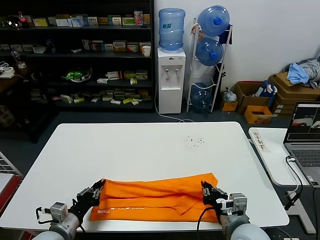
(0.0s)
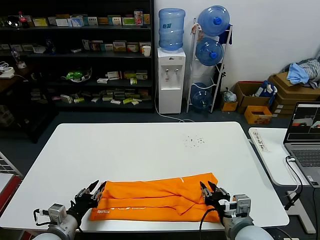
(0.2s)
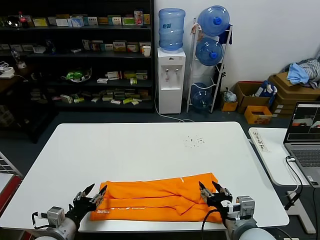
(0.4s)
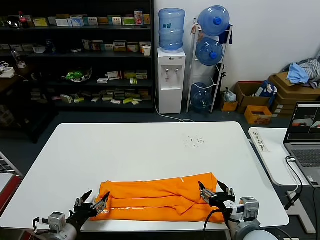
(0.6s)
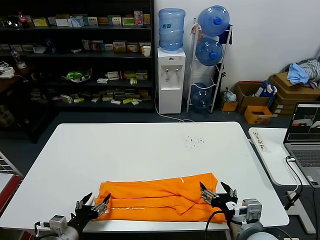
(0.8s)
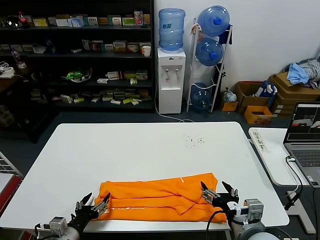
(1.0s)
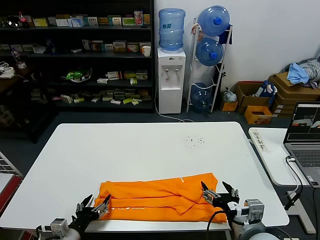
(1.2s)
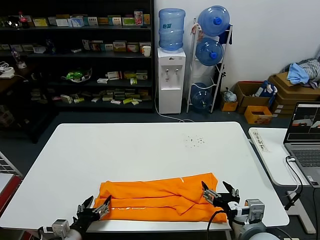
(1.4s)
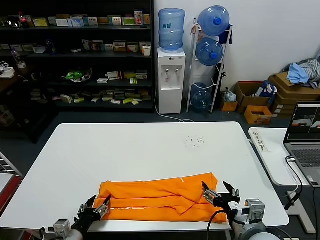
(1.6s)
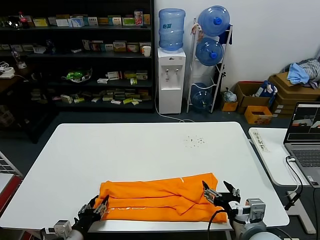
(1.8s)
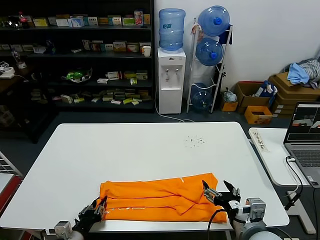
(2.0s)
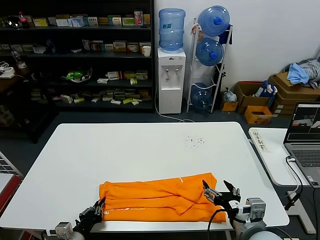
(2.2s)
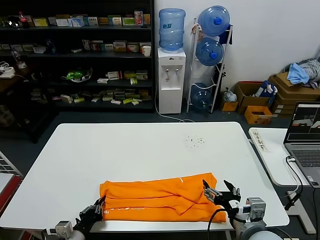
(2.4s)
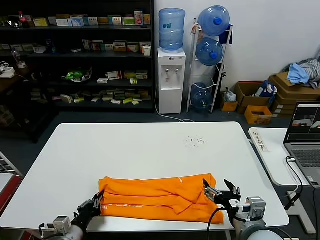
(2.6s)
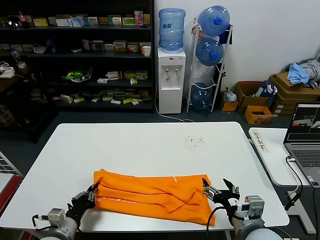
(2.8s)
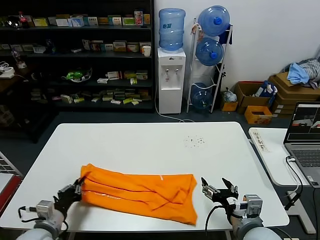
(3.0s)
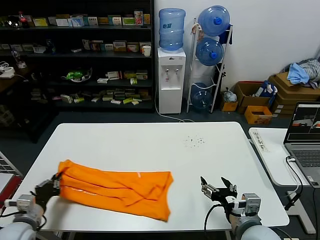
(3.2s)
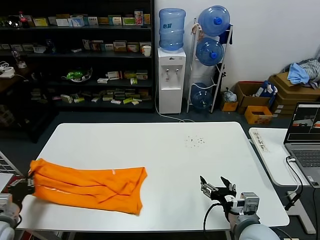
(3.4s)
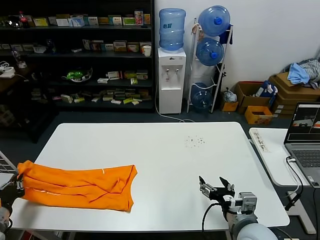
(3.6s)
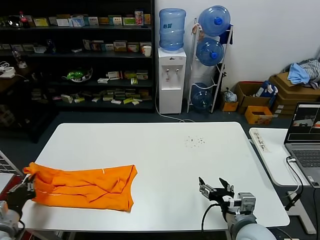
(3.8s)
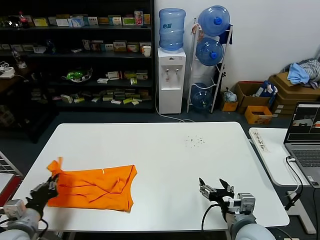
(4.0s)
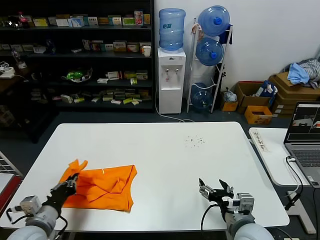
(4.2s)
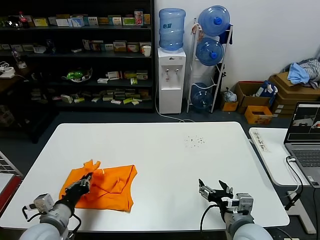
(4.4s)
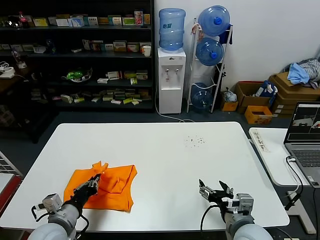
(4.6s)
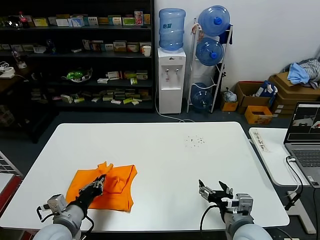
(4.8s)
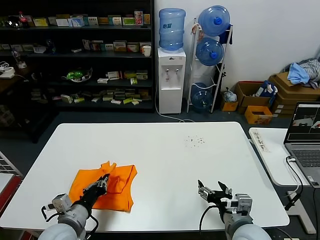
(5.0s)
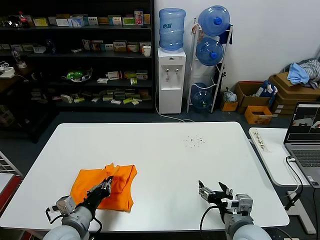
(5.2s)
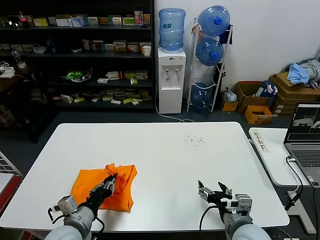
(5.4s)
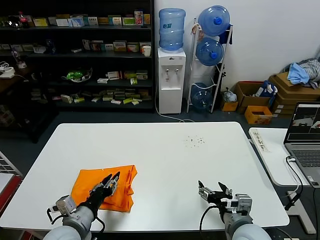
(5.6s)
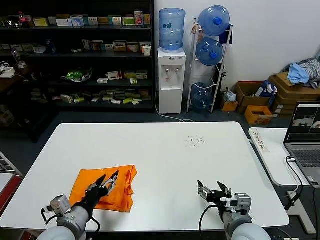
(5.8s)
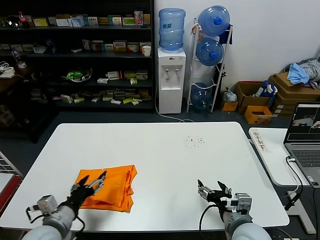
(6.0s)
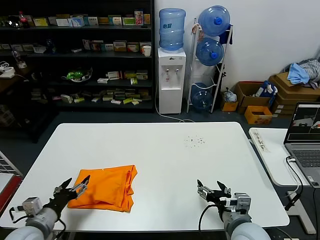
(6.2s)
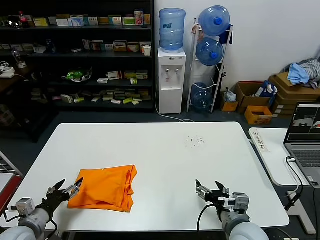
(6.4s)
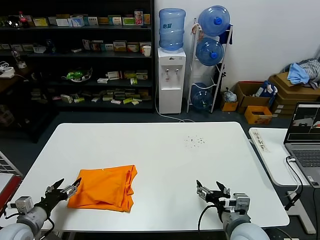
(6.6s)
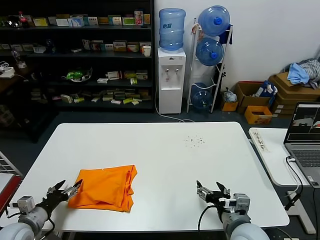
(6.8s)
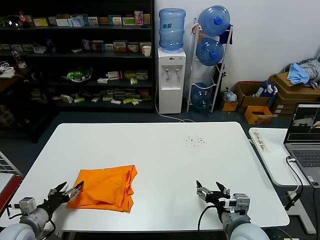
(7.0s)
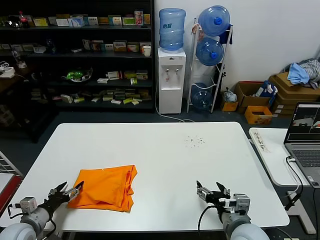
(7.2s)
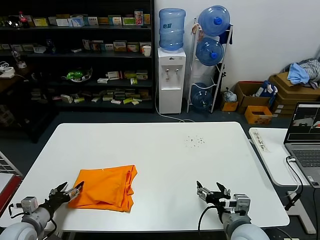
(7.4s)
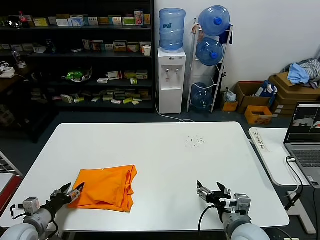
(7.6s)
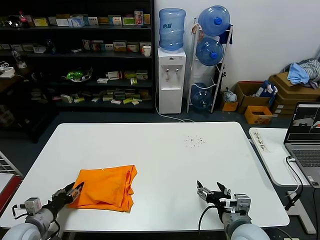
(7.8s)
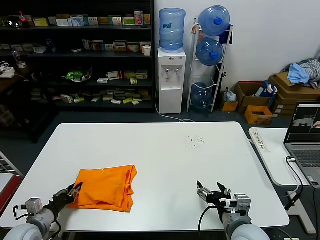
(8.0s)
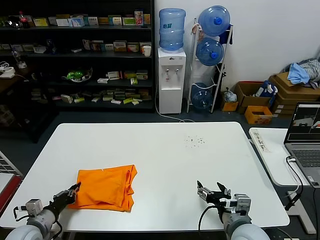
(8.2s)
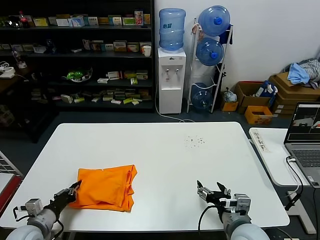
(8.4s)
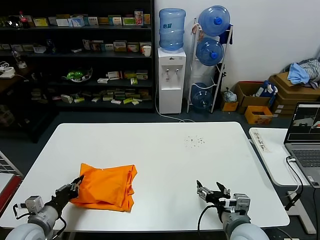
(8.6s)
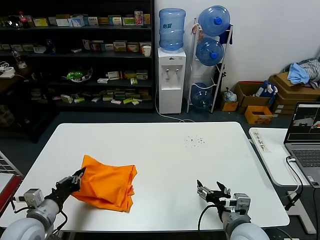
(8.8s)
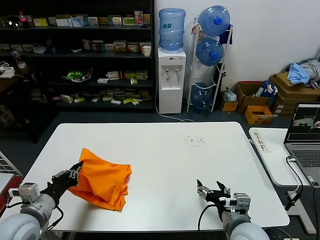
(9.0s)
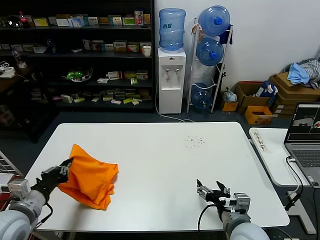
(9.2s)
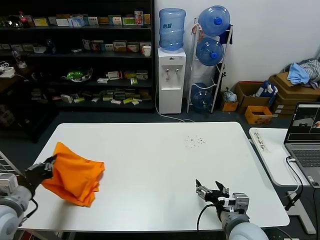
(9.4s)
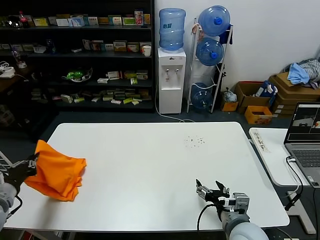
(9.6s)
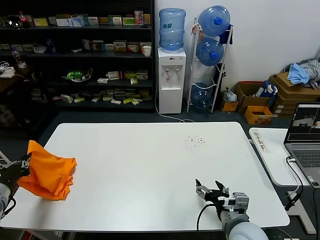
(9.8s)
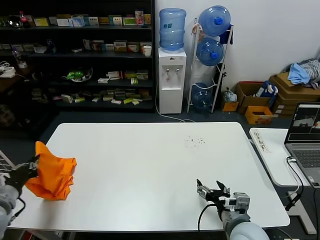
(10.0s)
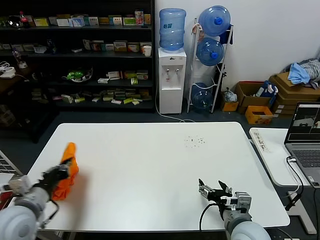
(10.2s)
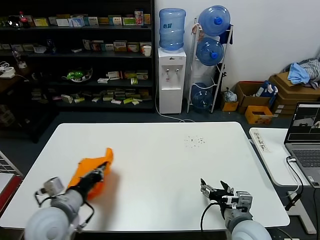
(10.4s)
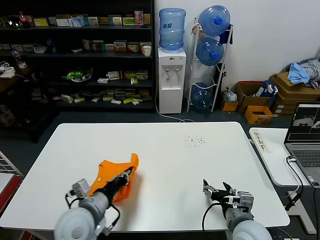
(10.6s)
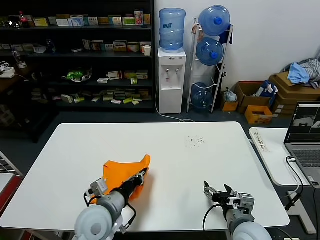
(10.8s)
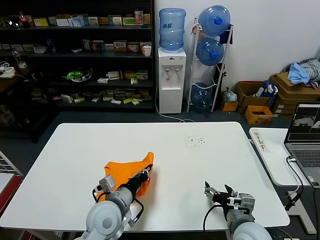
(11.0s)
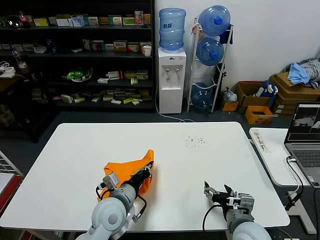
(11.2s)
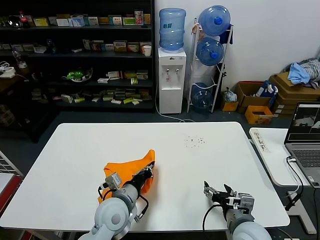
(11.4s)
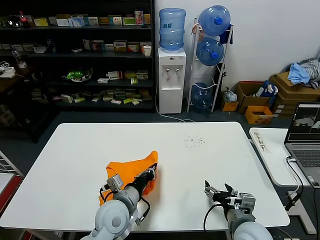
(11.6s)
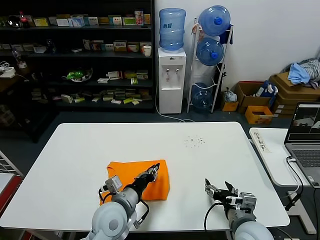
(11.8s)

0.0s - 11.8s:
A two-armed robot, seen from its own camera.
Task of the whole recording: fold and organize the clothes.
Step, 0.4s - 2.6s: use the left gripper to clamp the left edge of the fabric.
Step, 2.8s - 5.8s: use the left gripper to drag the left edge of the fabric to the left and folds it over the right edge.
0.0s - 1.4s: The right gripper opens up. The left gripper changes place by about 5 cm, and opens its fingers.
1.4s - 3.0s: The left gripper moves about 5 cm, and closes up.
3.0s - 4.4s: The left gripper goes to the left and returns, some 15 cm each way.
4.4s - 6.0s: The left gripper opens its fingers.
6.0s - 7.4s: The left gripper is displaced to the left and downward by about 15 cm.
7.4s - 8.8s: The left gripper travels to the right and upward by about 10 cm, and closes up.
8.8s - 10.4s: The left gripper heads to the right and upward, covering some 10 cm.
10.4s - 11.8s: The left gripper goes roughly 15 cm to the right.

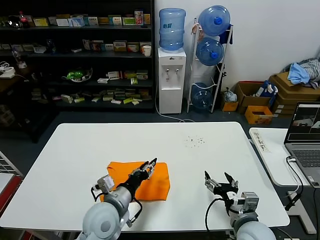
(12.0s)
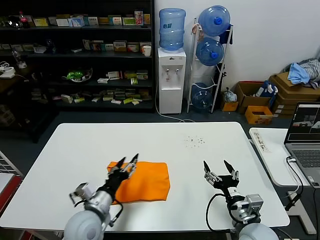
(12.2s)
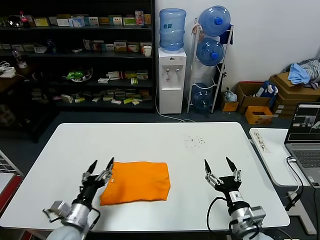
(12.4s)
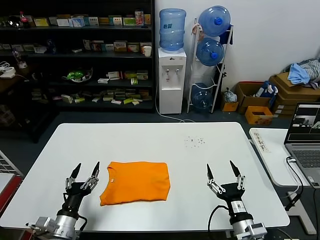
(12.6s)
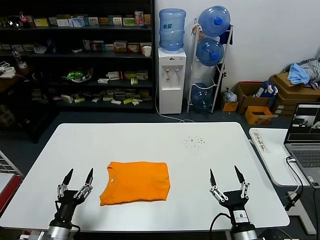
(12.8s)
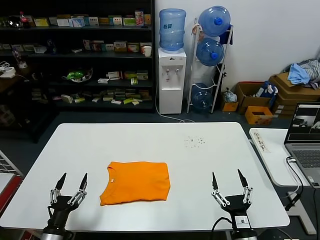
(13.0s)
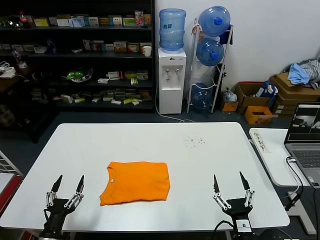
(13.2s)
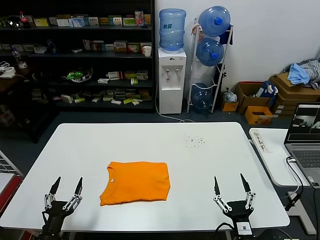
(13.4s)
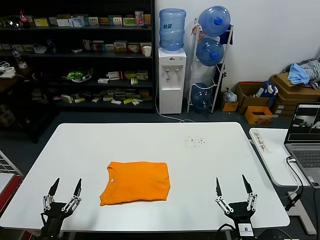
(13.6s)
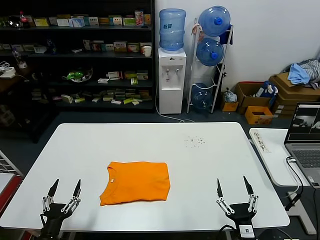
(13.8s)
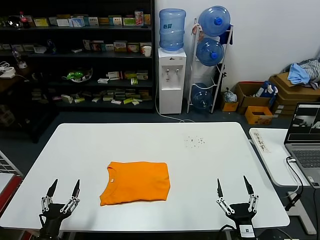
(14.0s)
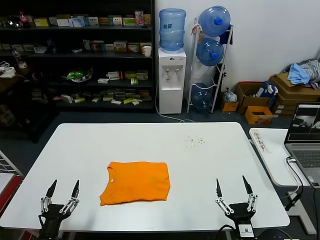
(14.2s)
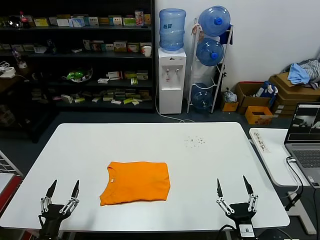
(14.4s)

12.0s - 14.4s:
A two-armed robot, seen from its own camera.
Task of the whole recording: fold and organize the clothes.
12.0s - 13.2s: The left gripper moves to the left, backward and downward, roughly 25 cm, and opens. The right gripper moves backward and downward, some 10 cm.
13.2s - 14.4s: The grippers stay close to where they were, moving slightly.

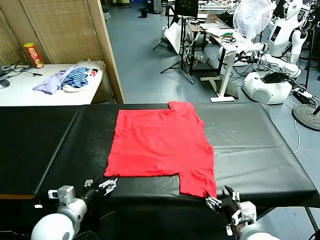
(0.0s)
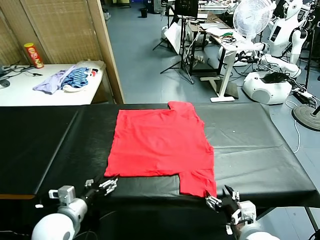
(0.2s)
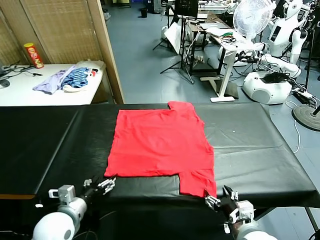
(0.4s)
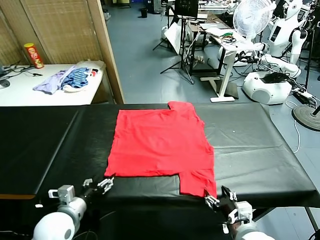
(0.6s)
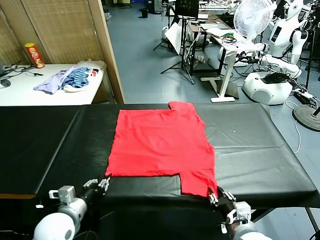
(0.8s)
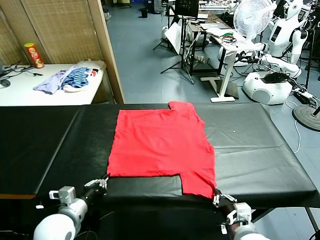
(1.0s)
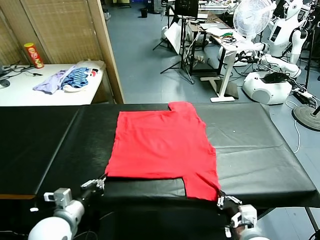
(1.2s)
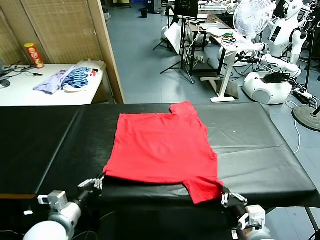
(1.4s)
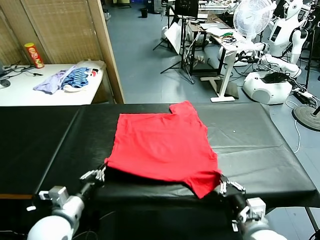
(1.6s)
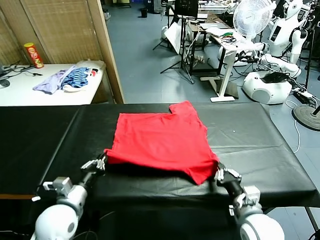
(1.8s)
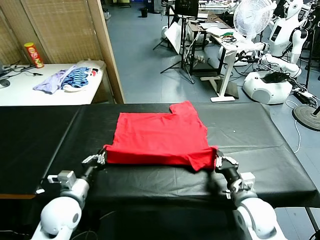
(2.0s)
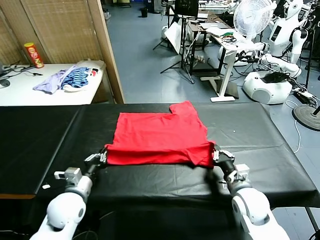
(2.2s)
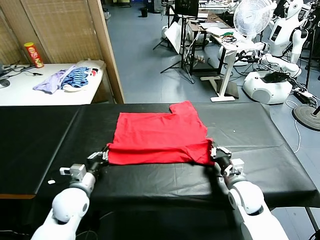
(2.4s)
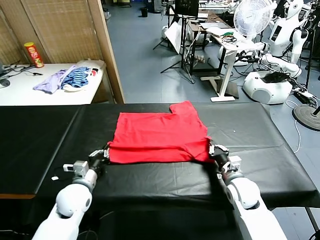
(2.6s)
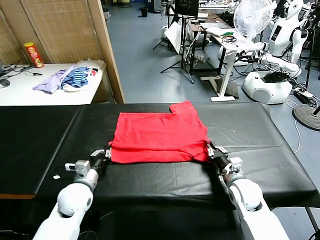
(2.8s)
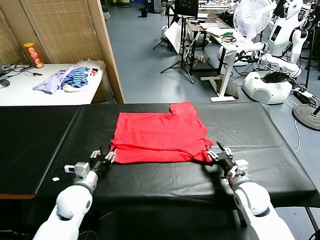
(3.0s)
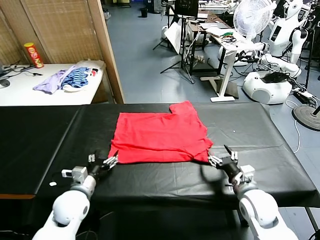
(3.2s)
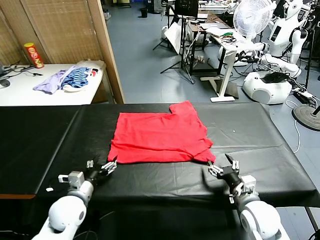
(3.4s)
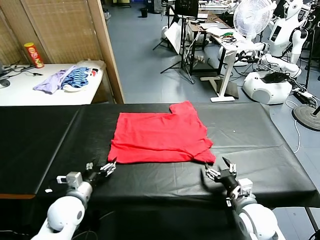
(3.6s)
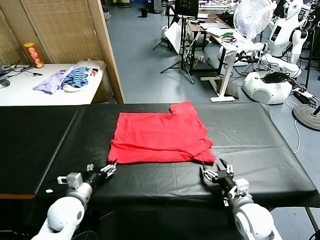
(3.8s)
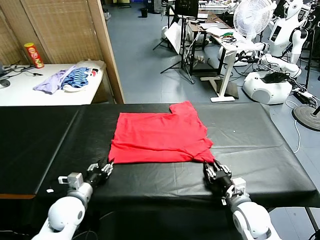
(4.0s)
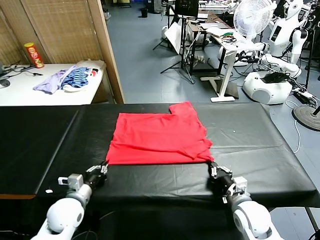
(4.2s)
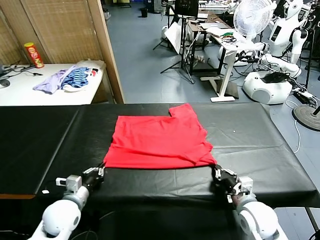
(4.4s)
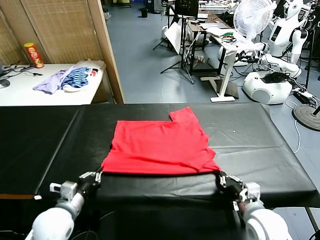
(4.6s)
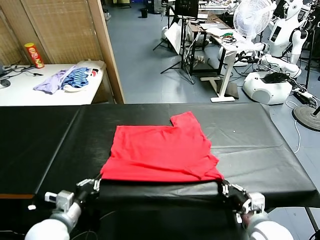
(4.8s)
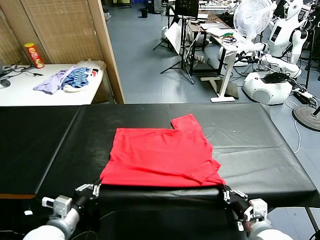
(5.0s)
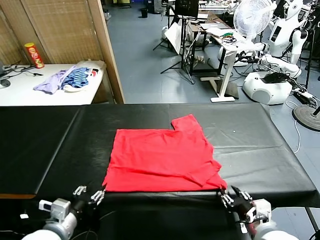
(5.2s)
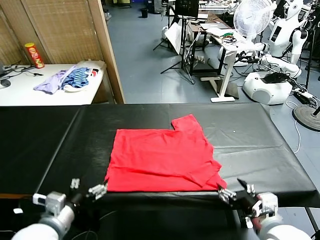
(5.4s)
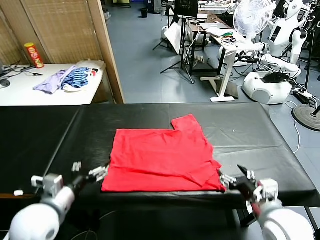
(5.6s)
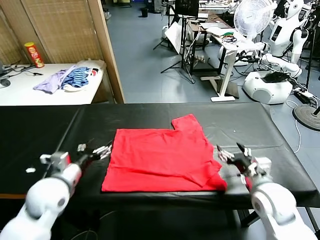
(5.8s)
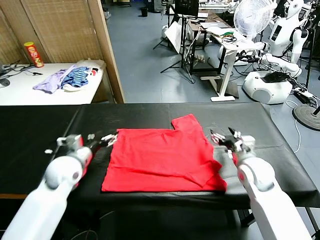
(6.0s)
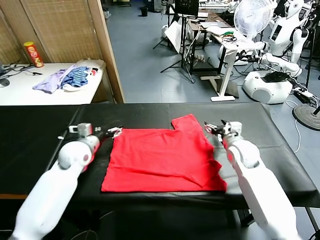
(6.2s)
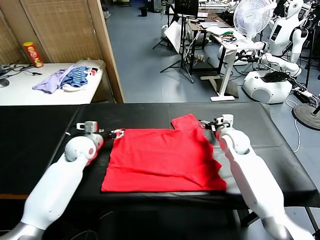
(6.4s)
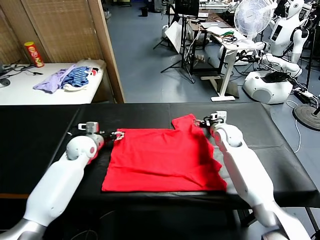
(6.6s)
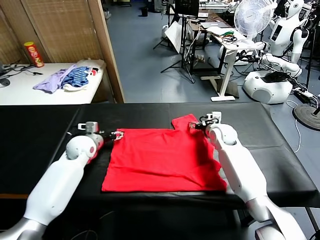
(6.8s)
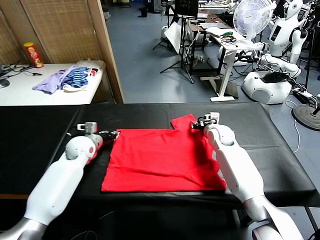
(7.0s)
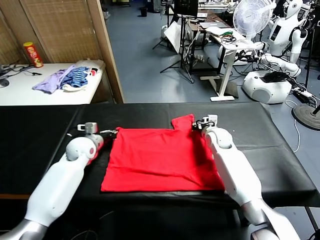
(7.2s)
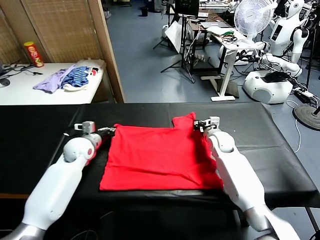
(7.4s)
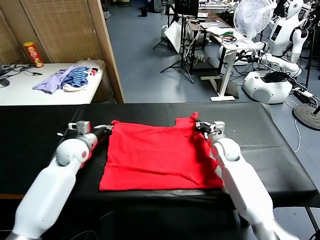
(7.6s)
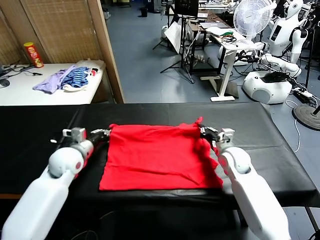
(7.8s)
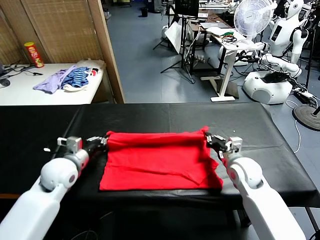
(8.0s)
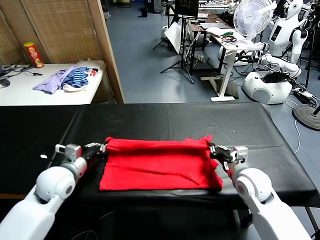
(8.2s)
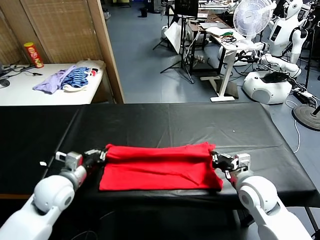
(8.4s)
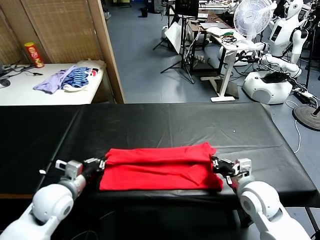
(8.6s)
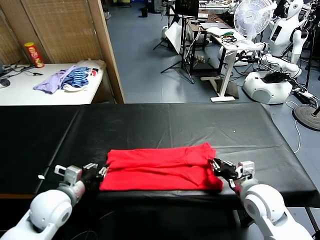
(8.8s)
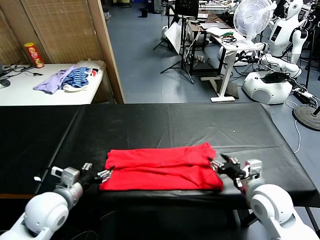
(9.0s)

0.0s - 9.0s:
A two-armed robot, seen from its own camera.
Task of the whole recording: fold and organize the clothes.
Step, 0.0s - 1.2s: use both grippers simultaneously to clamp the lower edge of the clothing fabric.
Step, 1.4s - 3.0s: use both grippers to drag the lower edge of the fabric forward and fold it over the upper edge.
Step, 3.2s - 5.2s: Drag the clothes downward with both gripper.
Step, 5.6s - 7.6s: use both grippers simultaneously to clamp the upper edge of the clothing fabric.
Step, 7.8s - 9.0s: use both grippers to drag the upper edge of the fabric backward and fold it over the lower edge.
1.6s - 3.0s: The right gripper reaches about 10 cm forward, then returns, and opens its fingers. The left gripper heads forward, covering roughly 5 cm, and opens up.
3.0s - 4.4s: Both grippers travel together backward, about 5 cm. The left gripper closes; the right gripper closes up.
4.4s - 6.0s: Both grippers move forward, about 20 cm. The left gripper opens its fingers. The right gripper opens its fingers.
6.0s - 7.6s: The right gripper goes forward and returns, approximately 10 cm each way, and closes its fingers. Meanwhile the left gripper closes up.
7.6s - 9.0s: The left gripper goes about 15 cm backward, and opens up; the right gripper travels backward and upward by about 15 cm, and opens.
